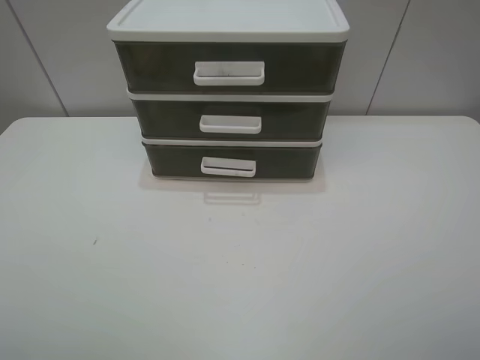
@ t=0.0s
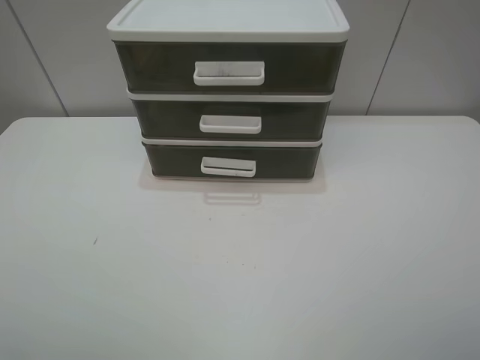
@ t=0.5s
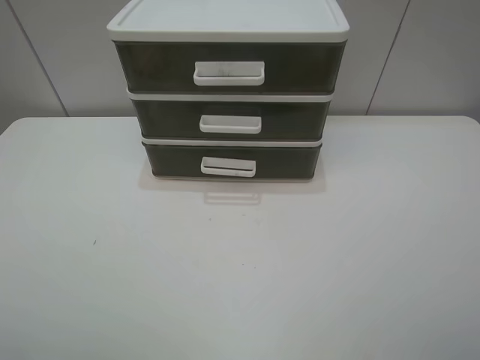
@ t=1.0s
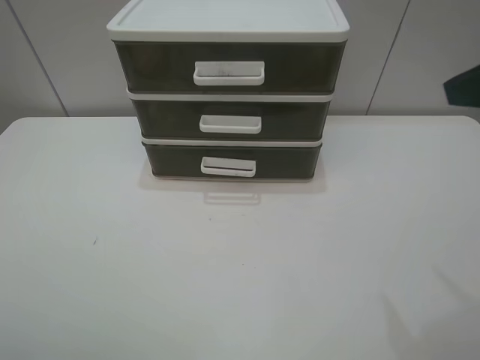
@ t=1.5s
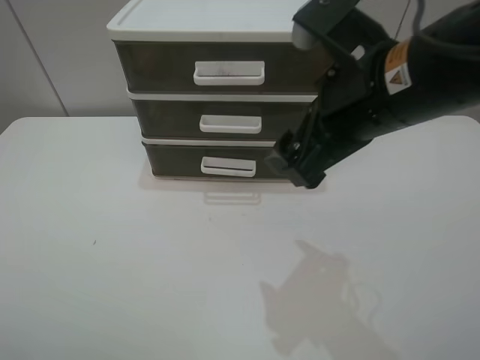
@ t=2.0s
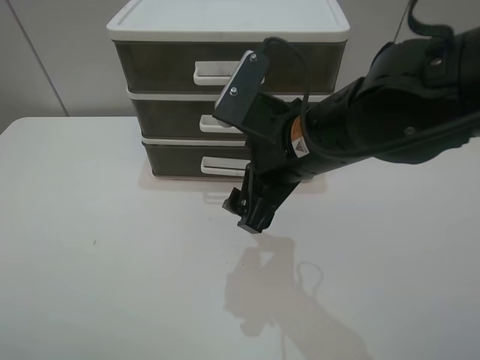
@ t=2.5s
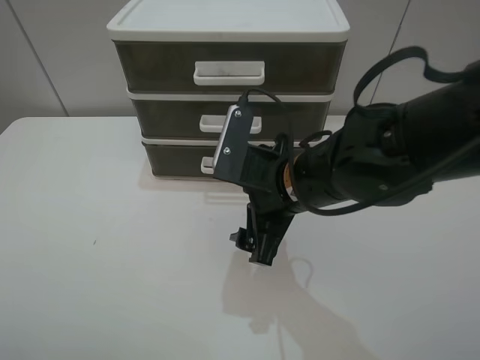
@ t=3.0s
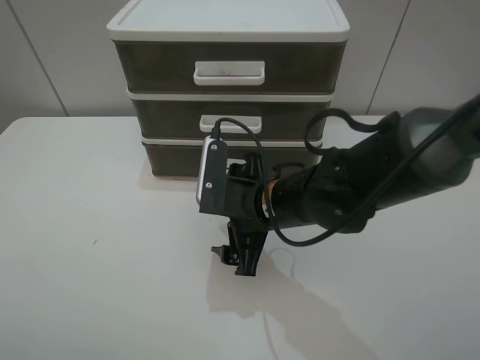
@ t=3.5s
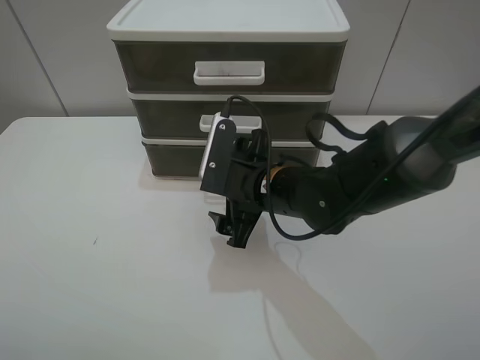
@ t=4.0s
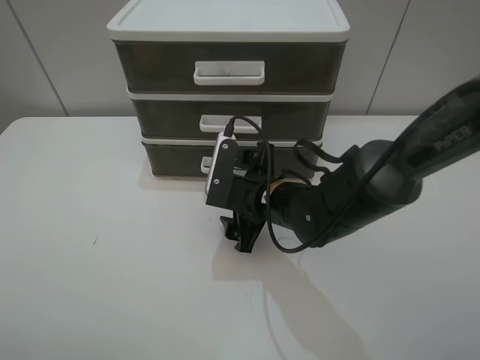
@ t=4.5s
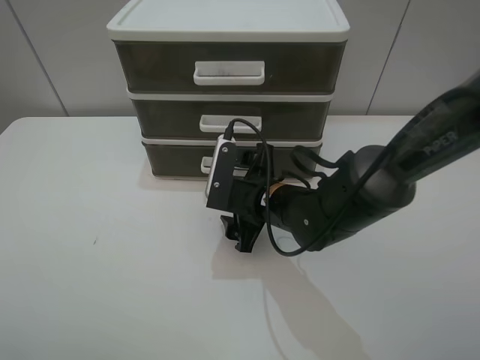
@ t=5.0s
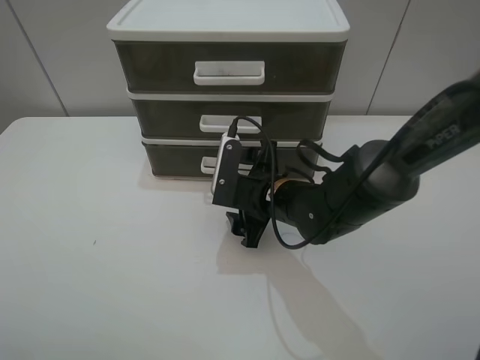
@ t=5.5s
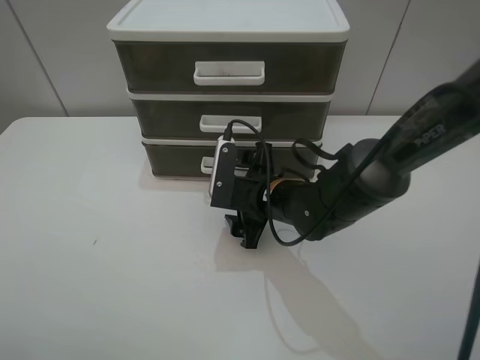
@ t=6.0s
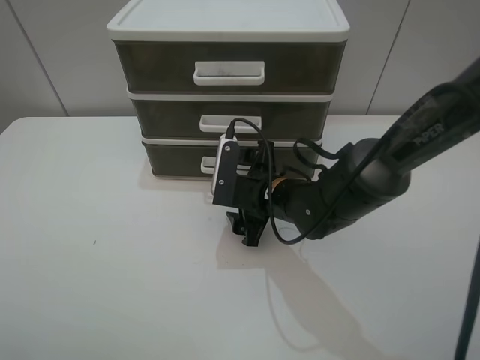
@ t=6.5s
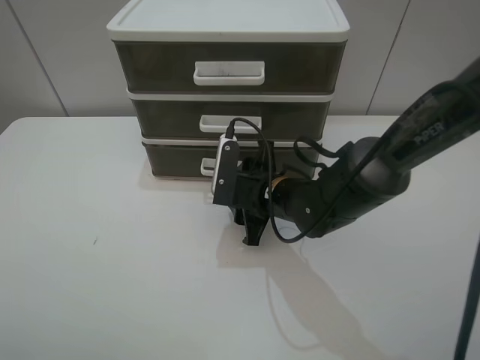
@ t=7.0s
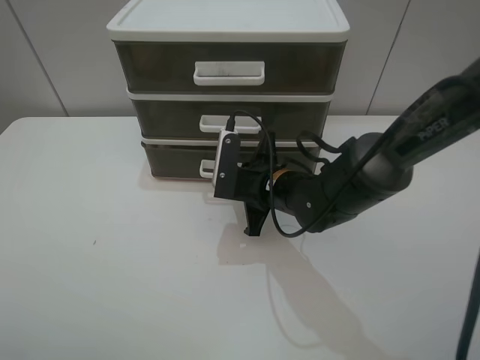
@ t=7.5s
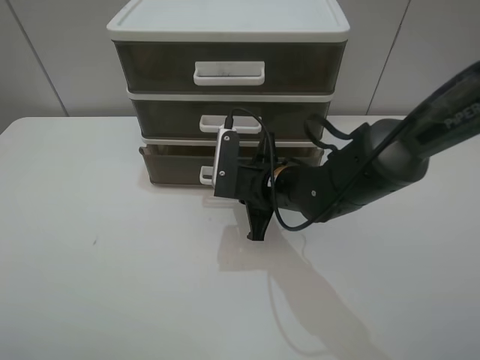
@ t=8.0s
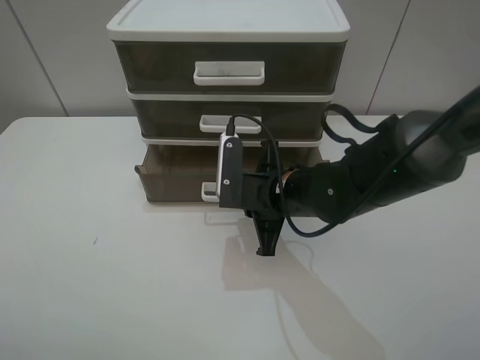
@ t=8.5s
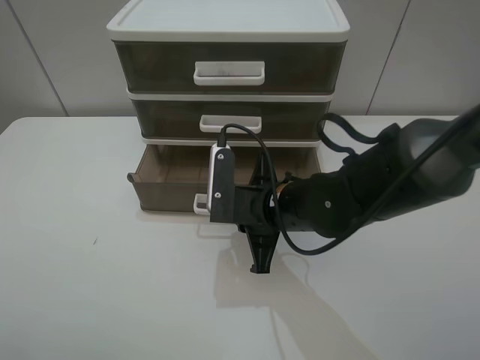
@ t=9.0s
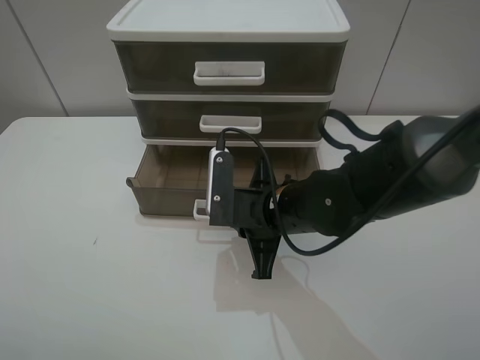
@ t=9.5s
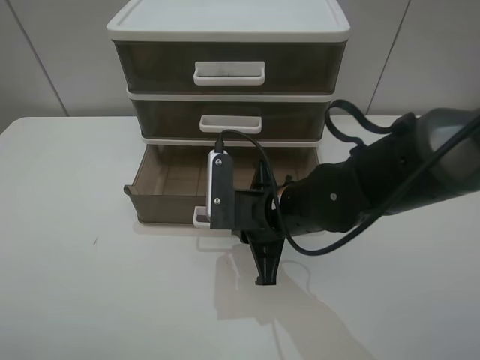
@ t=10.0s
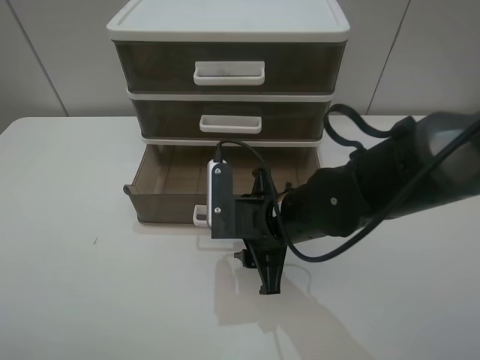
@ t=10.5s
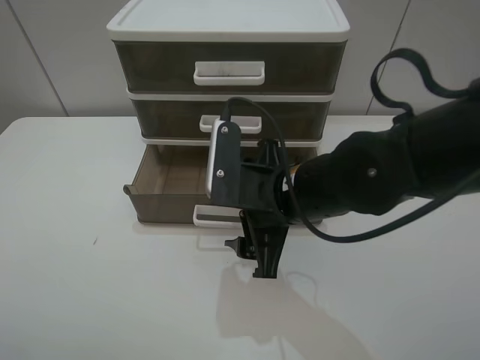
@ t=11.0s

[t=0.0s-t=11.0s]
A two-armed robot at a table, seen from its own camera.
Task of the whole recording: open the bottom drawer.
Step, t=0.0s to t=7.5s: Grab the bottom drawer with the right gripper.
t=0.0s to t=2.0s: The right gripper heads forward and to the left, covering about 30 cm.
t=2.0s to t=3.5s: The right gripper shifts roughly 15 cm downward.
t=3.5s to t=5.5s: The right gripper moves roughly 5 cm.
t=5.5s to t=7.5s: The right gripper closes its fingers.
t=7.5s to t=9.0s: The right gripper shifts roughly 5 cm backward.
t=9.0s to t=11.0s: The right gripper shifts some 5 cm upward, and opens.

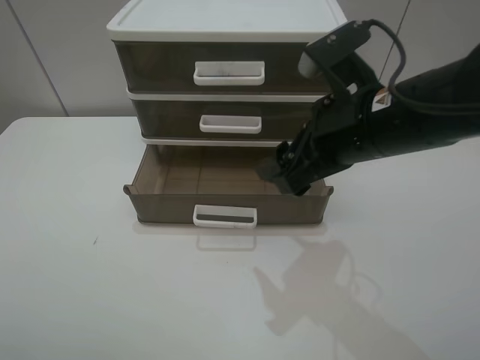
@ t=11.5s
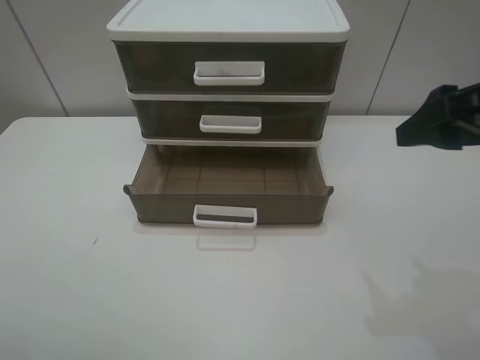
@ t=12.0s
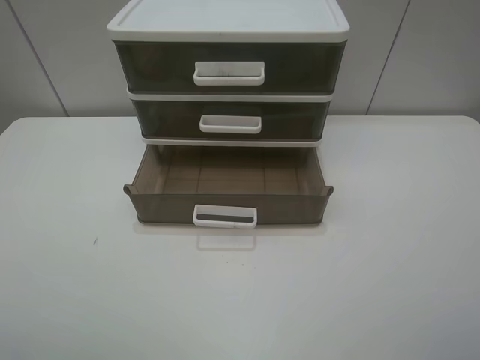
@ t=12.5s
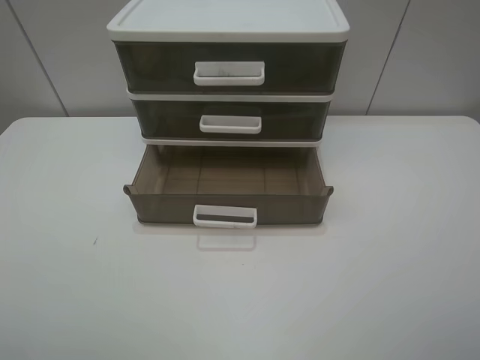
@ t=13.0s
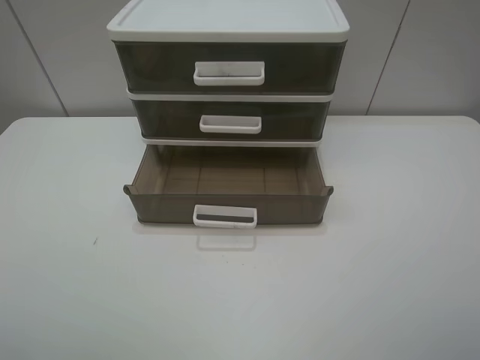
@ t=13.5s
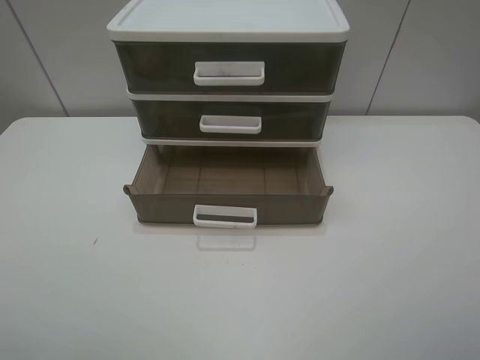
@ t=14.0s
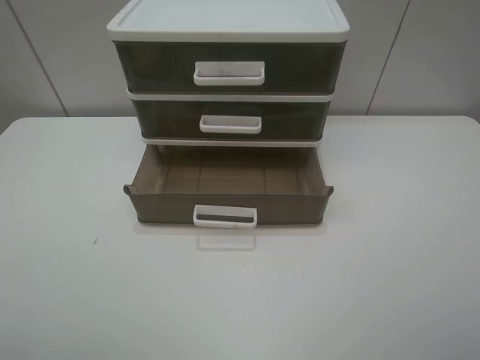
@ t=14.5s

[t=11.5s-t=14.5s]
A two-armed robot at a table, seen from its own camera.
Task of the whole recording: open the bottom drawer.
t=11.5s to t=13.0s: The right gripper goes roughly 25 cm backward and to the right.
t=13.0s to t=14.5s: The two grippers keep their place.
